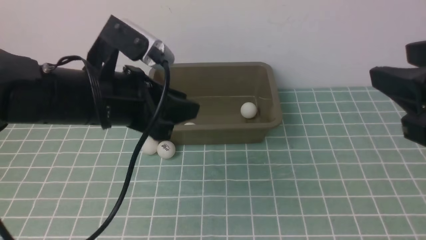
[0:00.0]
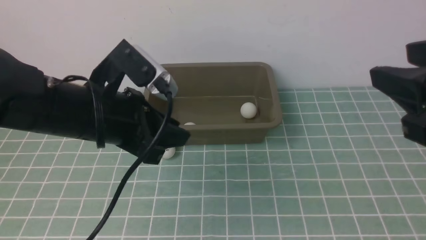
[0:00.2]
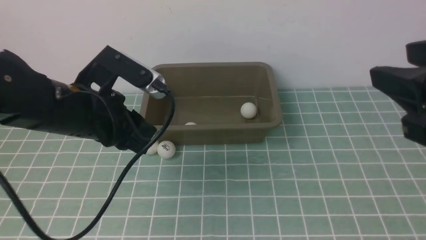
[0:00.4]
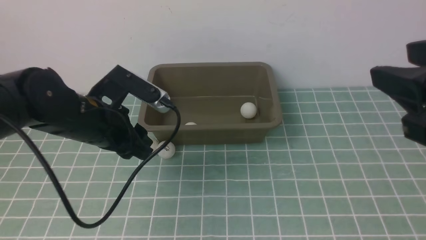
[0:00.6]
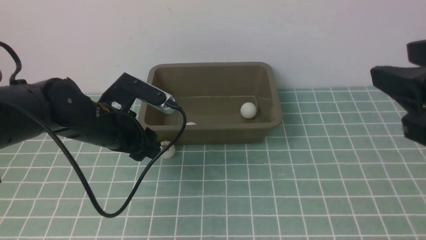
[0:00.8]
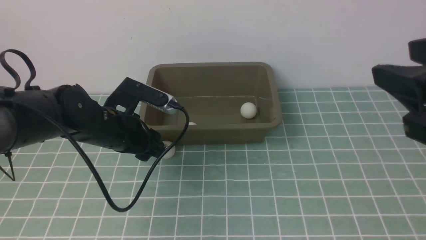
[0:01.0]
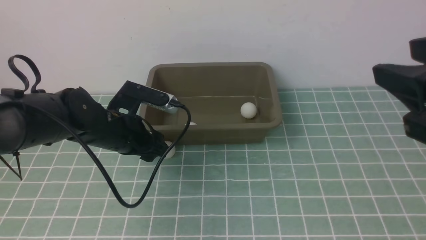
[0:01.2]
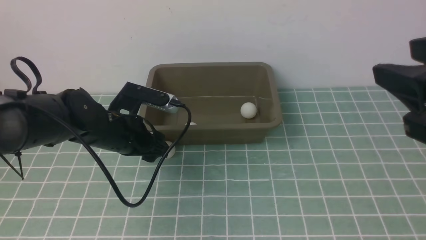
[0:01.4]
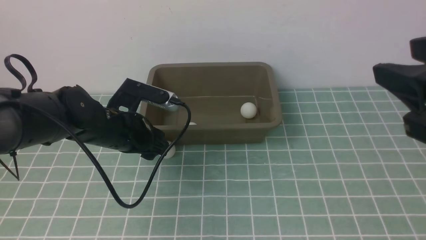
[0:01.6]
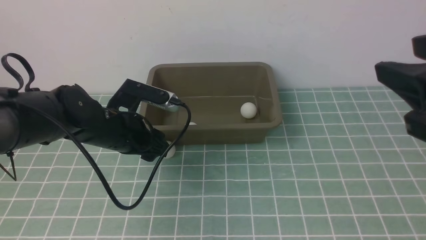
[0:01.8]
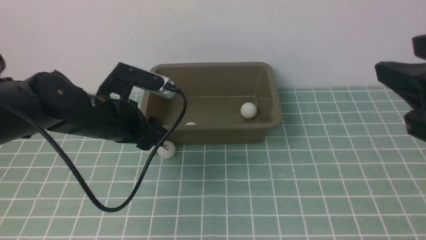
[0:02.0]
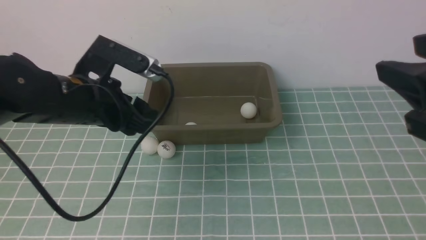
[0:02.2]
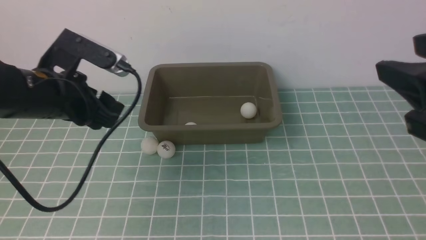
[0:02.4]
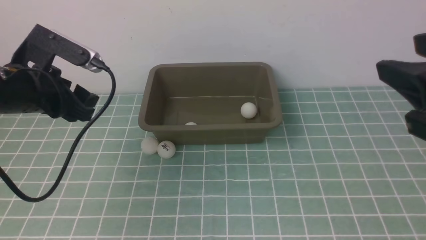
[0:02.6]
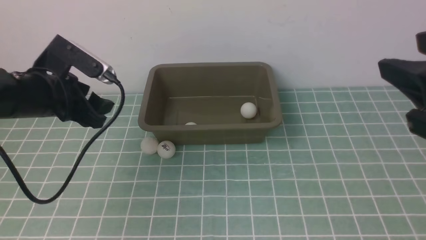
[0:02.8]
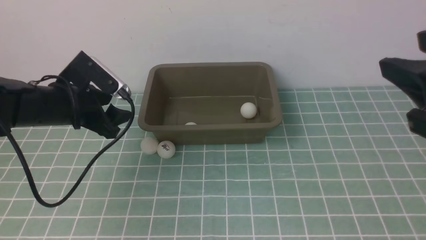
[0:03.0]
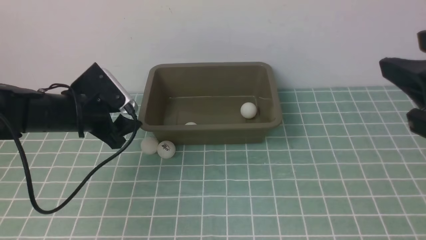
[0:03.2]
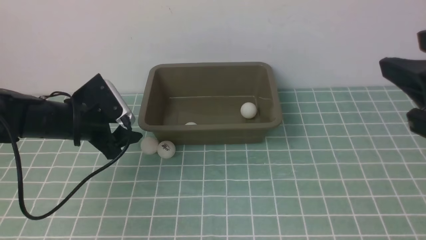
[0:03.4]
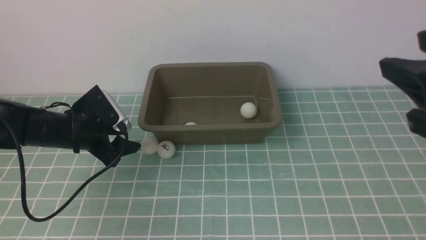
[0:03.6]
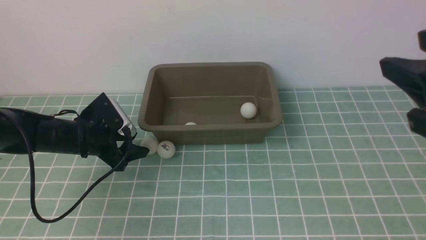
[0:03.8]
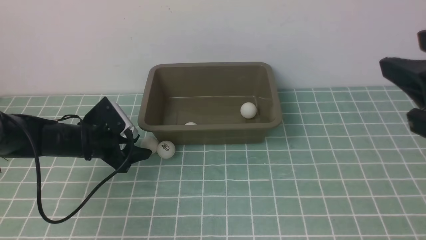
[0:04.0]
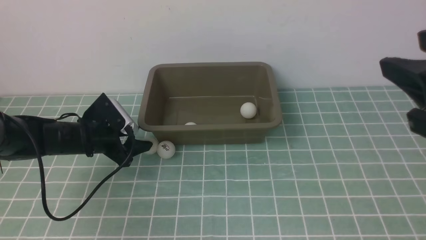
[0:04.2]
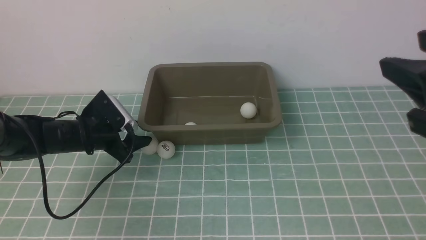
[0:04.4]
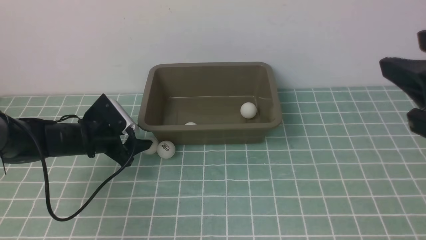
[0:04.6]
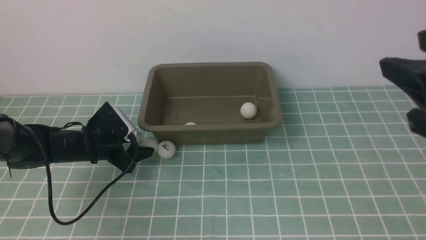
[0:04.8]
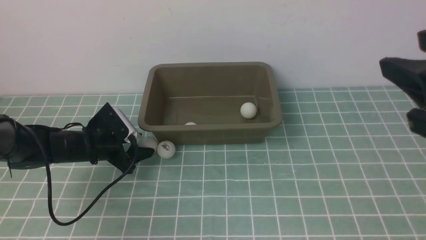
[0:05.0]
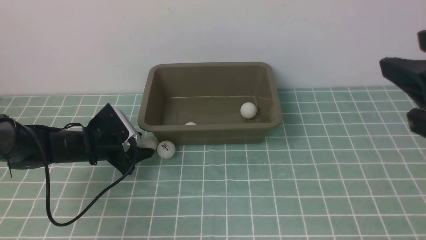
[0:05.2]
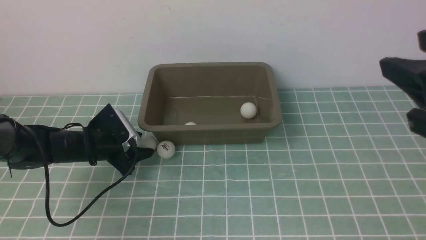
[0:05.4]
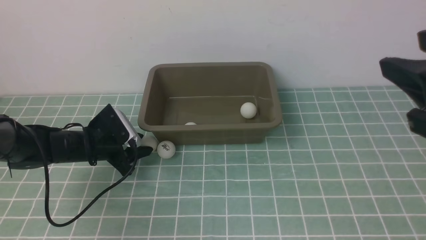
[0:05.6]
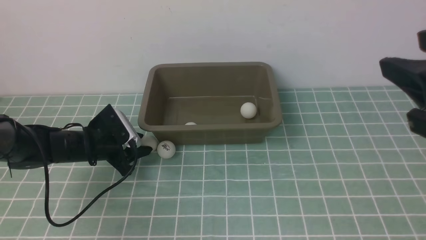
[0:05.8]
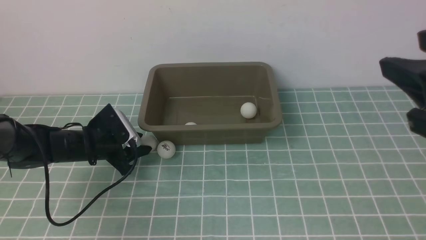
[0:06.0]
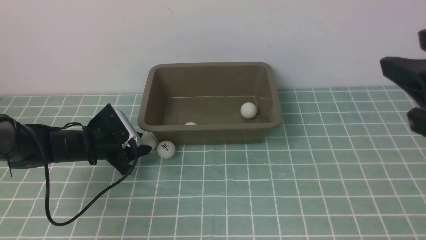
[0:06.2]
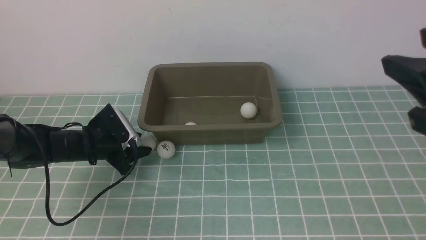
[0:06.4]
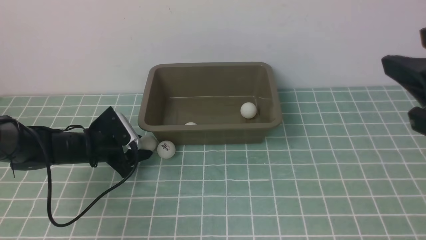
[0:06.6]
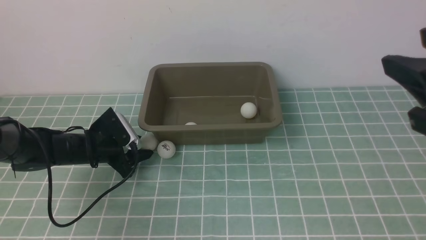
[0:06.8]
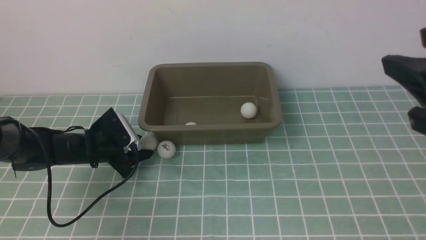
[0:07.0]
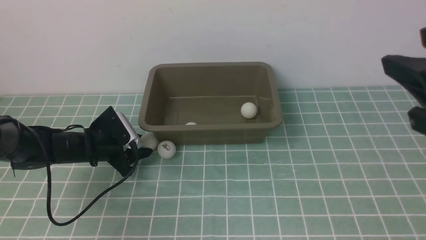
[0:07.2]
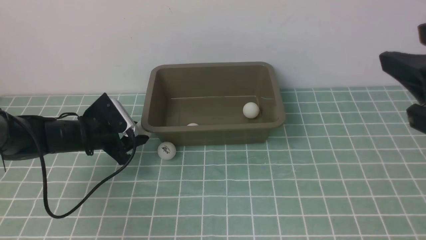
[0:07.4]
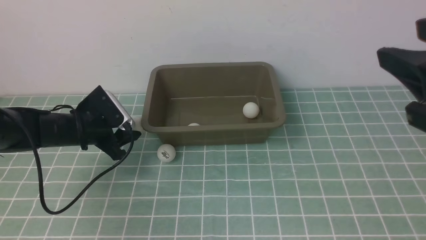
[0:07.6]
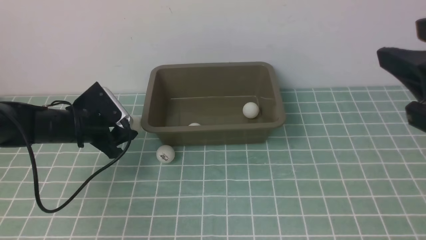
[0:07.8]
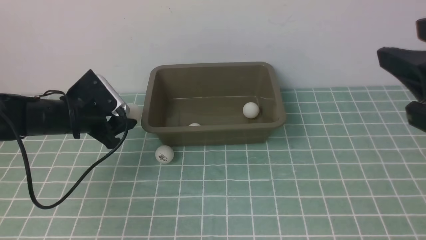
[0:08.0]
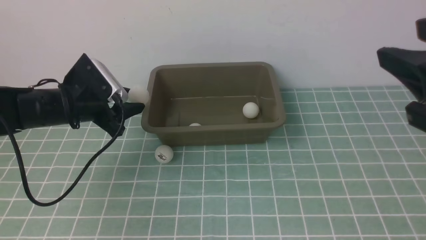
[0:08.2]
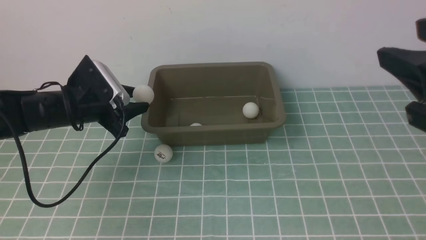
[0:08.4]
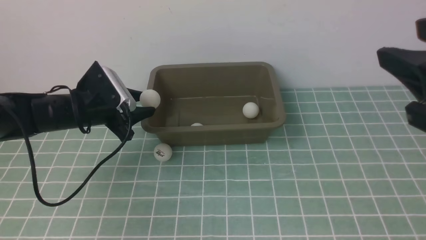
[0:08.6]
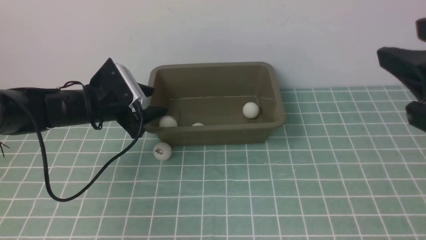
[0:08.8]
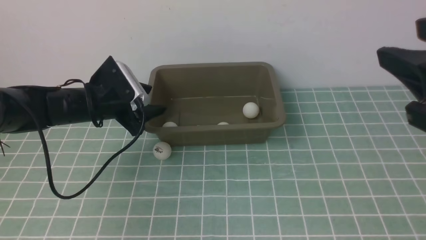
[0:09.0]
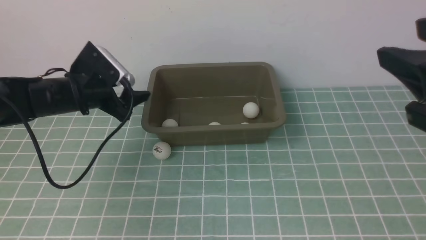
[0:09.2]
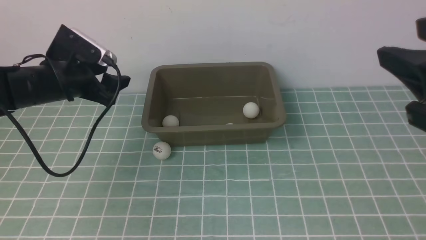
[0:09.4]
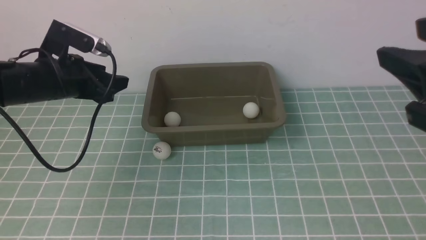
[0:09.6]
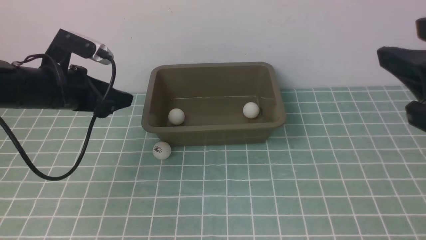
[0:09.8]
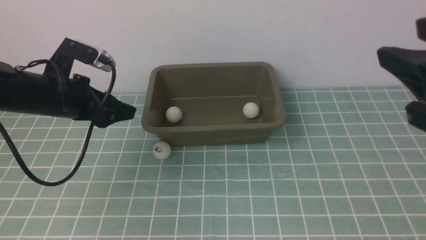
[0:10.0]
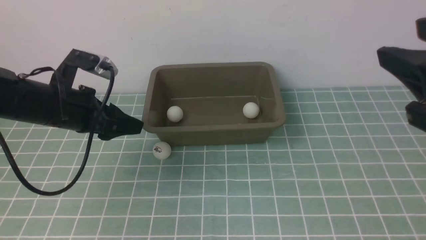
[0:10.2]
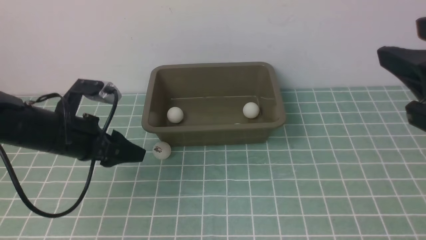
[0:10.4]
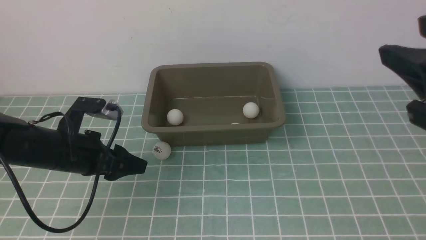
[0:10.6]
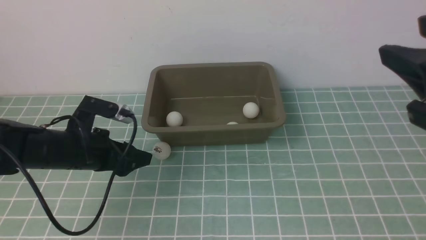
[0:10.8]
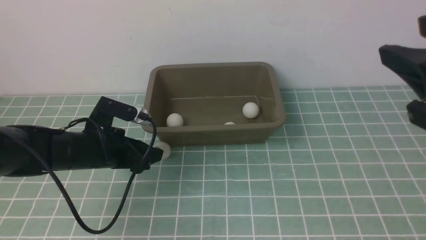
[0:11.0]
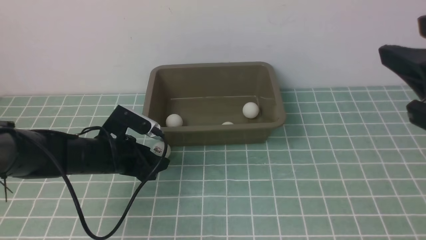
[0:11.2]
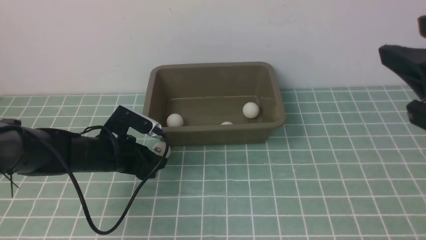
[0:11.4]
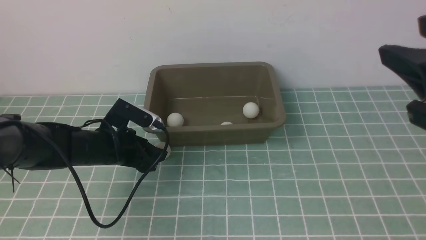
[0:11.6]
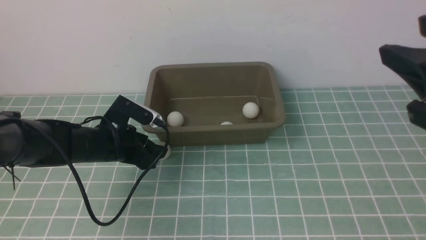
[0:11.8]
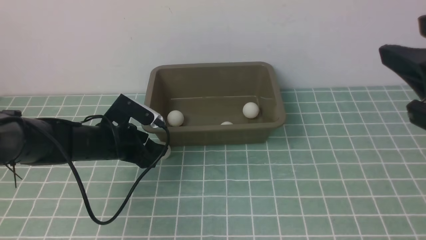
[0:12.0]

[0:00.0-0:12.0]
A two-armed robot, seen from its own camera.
Step, 0:00.0 to 0:07.8: use the left arm to clamp the table tennis ball closest to it.
Step, 0:08.0 to 0:09.0: use the left arm to put the table tennis ball into the box.
0:00.0 to 0:01.6: The left gripper moves about 10 cm downward and comes back, and opens its fingers.
0:01.6 to 0:03.0: The left gripper heads downward, to the left and forward, covering approximately 10 cm.
0:03.0 to 0:04.4: The left gripper is displaced downward by about 5 cm.
0:04.4 to 0:06.0: The left gripper closes.
0:06.0 to 0:07.6: The left gripper travels upward by approximately 5 cm.
0:07.6 to 0:09.0: The left gripper opens.
0:09.0 to 0:10.4: The left gripper goes about 10 cm backward.
0:10.4 to 0:12.0: The left gripper heads downward, covering about 5 cm.

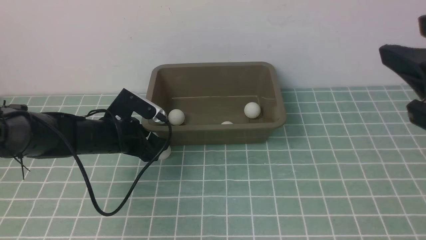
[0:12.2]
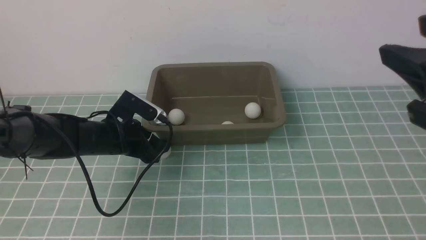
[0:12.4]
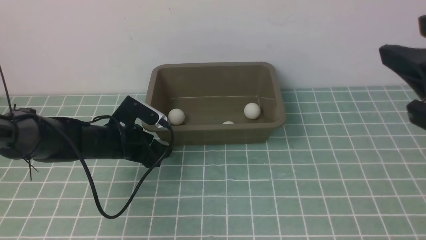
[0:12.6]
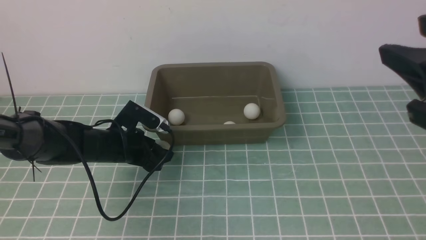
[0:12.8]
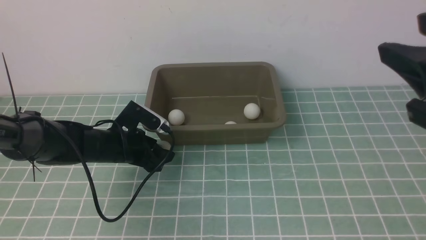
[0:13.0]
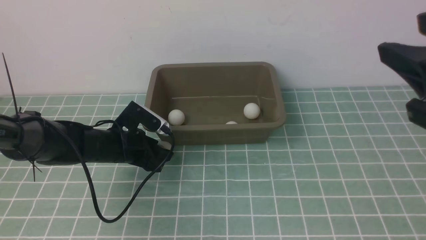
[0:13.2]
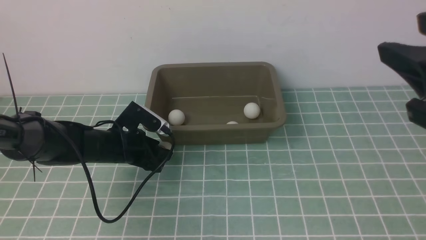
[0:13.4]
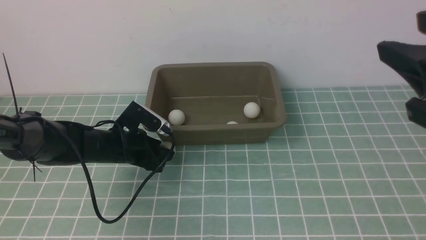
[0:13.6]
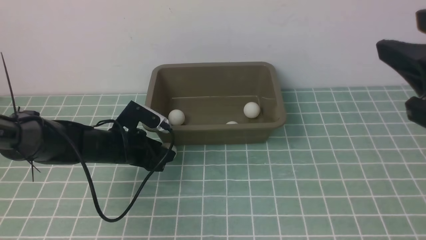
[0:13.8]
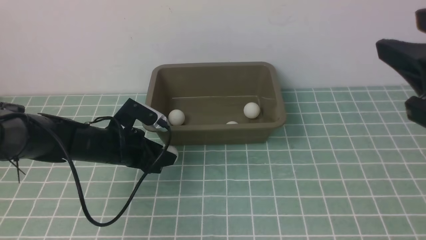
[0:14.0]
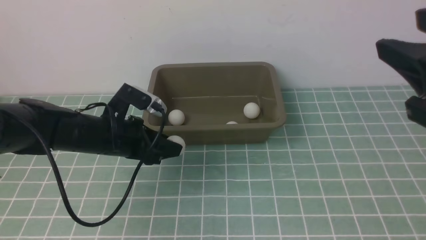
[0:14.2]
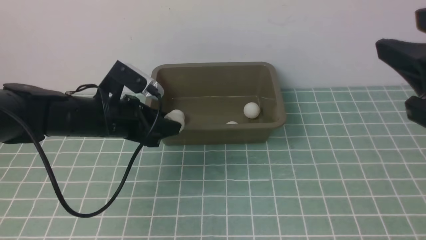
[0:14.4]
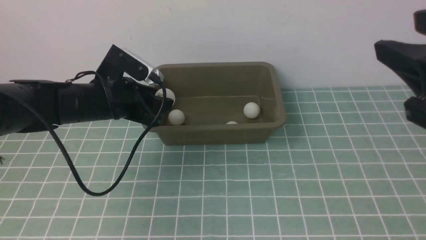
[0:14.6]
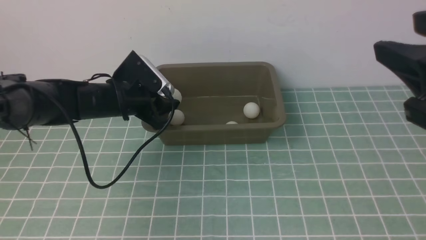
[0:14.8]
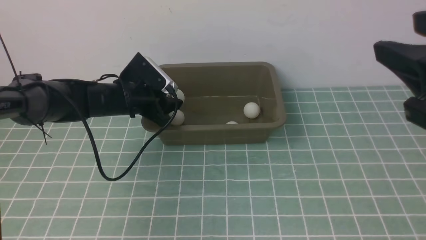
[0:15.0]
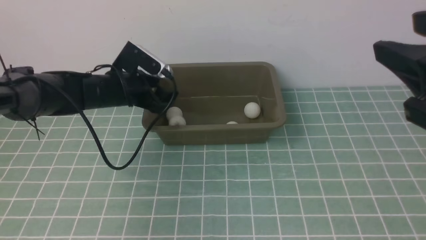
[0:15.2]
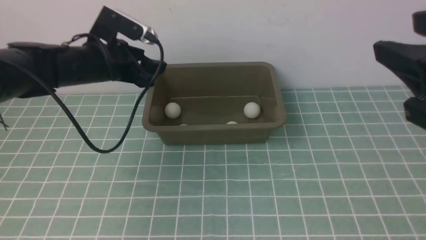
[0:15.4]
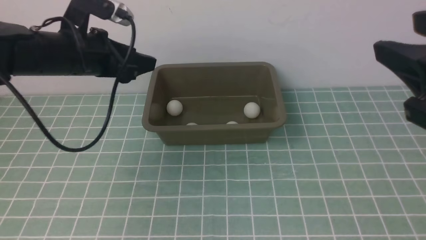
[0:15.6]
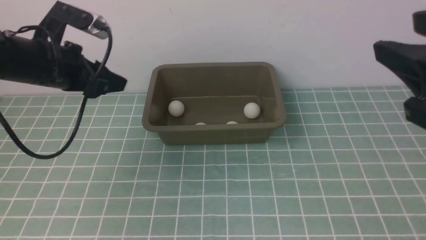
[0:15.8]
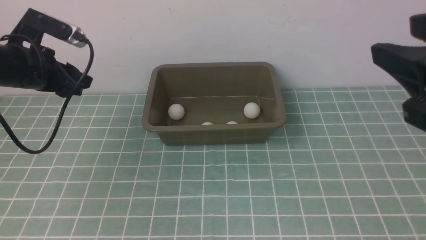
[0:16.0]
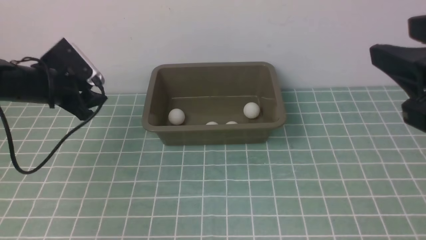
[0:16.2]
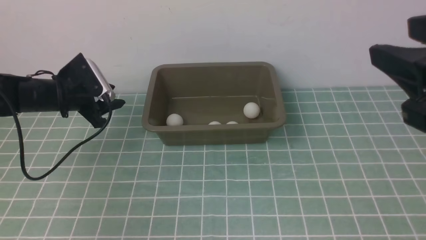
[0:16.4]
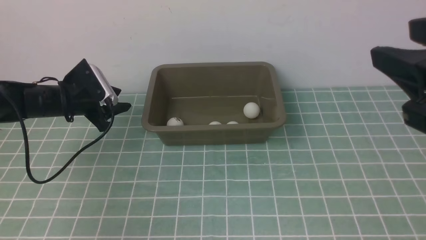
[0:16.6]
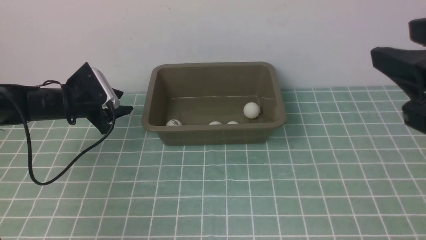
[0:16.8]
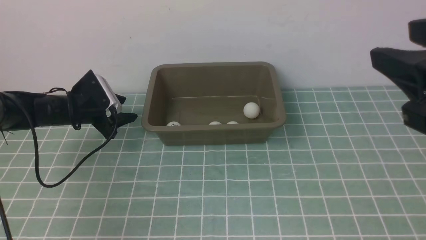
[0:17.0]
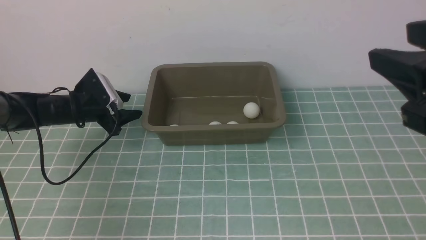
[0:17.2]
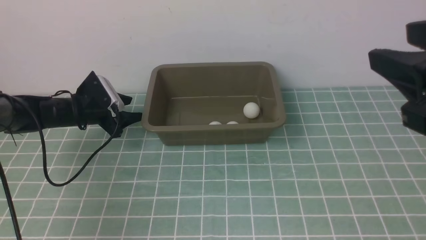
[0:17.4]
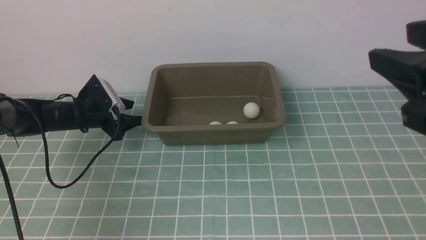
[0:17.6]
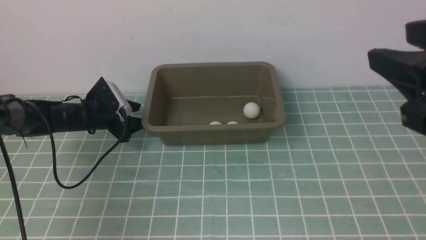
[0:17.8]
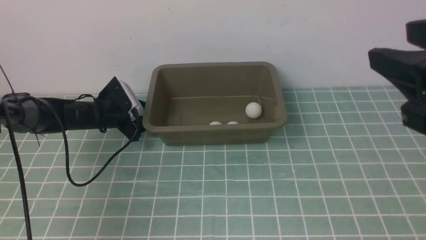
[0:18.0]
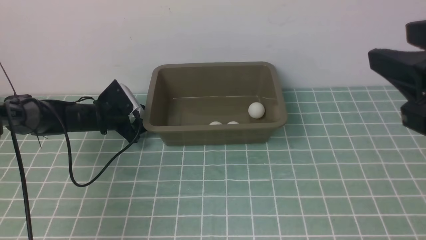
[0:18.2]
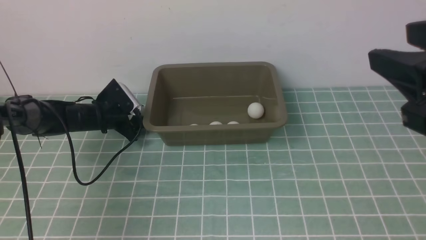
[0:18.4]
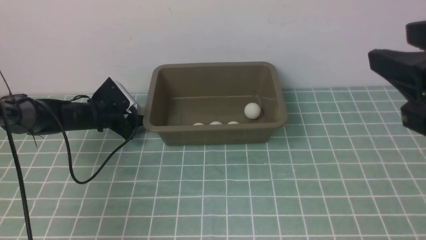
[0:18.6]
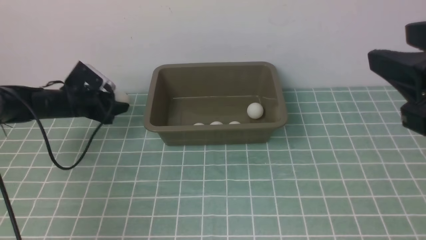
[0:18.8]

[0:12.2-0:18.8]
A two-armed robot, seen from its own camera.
Step, 0:14.4 to 0:15.4: use the left arm to put the table tennis ball into the box.
0:12.2 to 0:13.8: The left gripper closes its fingers.
0:13.8 to 0:15.4: The left gripper moves upward, about 15 cm, and opens up.
0:15.4 to 0:17.2: The left gripper heads downward and to the left, covering approximately 15 cm, and closes, then reopens.
0:17.2 to 0:18.8: The left gripper closes up.
